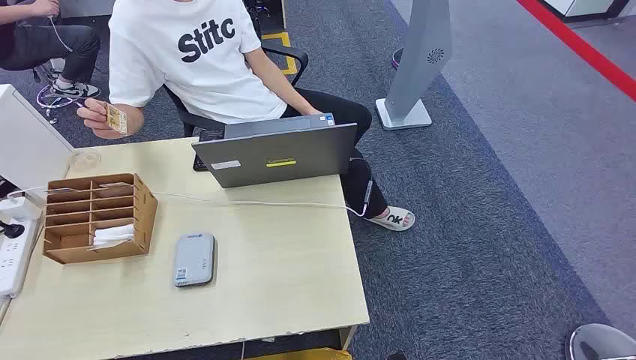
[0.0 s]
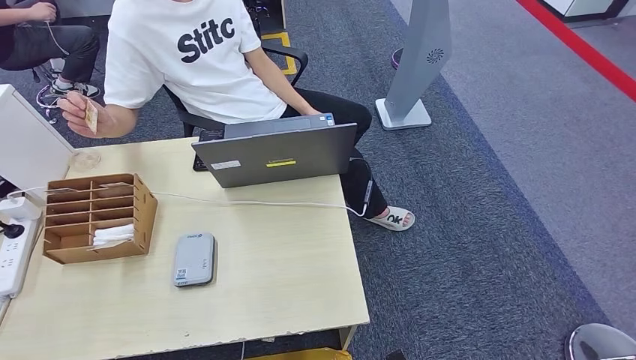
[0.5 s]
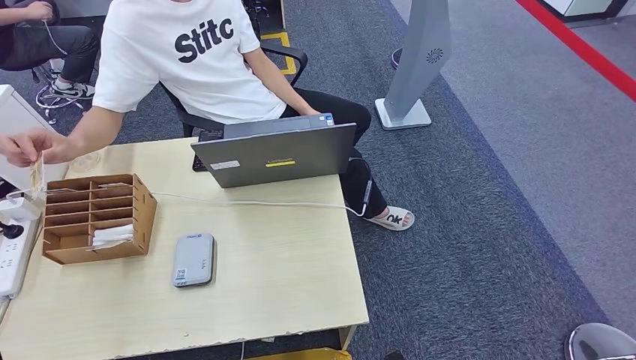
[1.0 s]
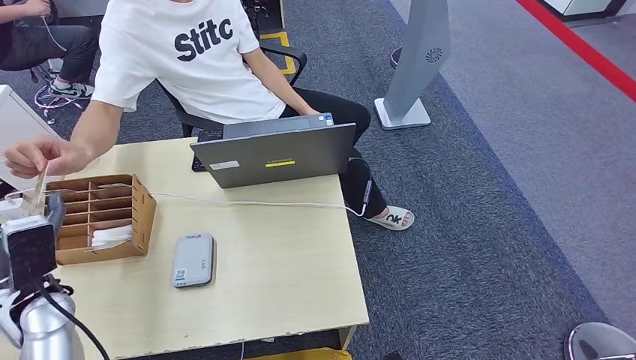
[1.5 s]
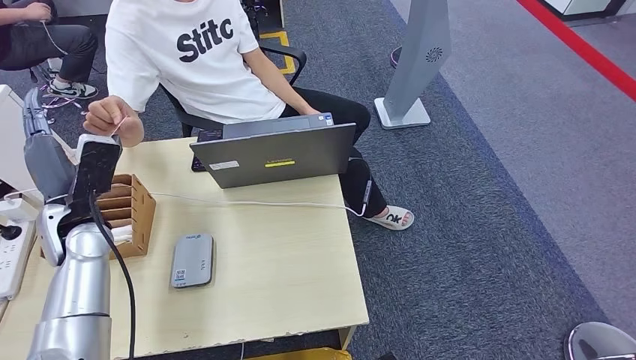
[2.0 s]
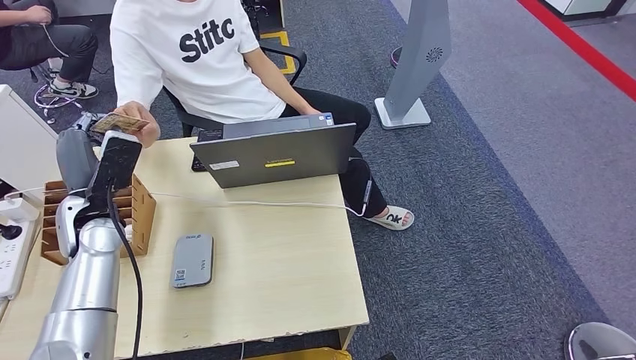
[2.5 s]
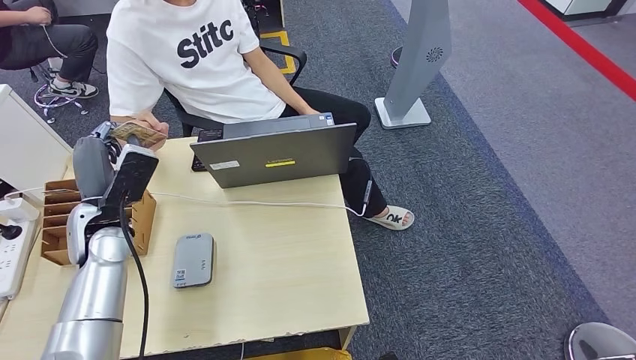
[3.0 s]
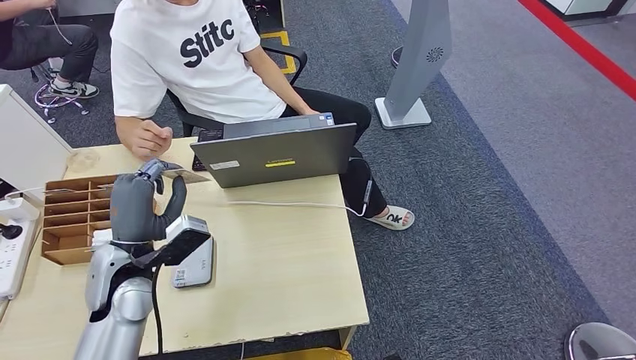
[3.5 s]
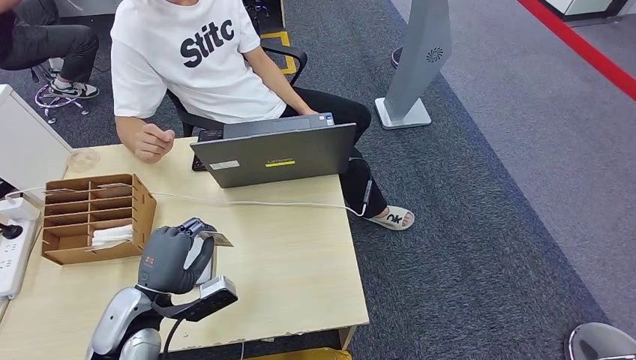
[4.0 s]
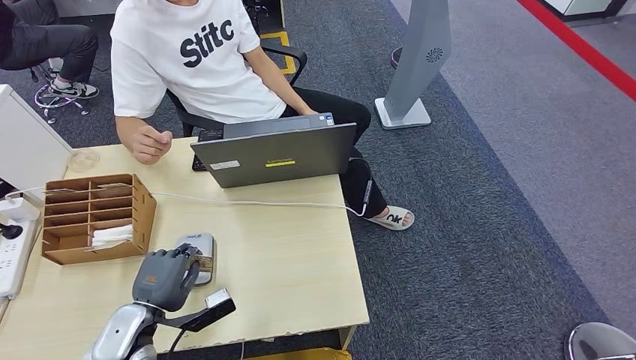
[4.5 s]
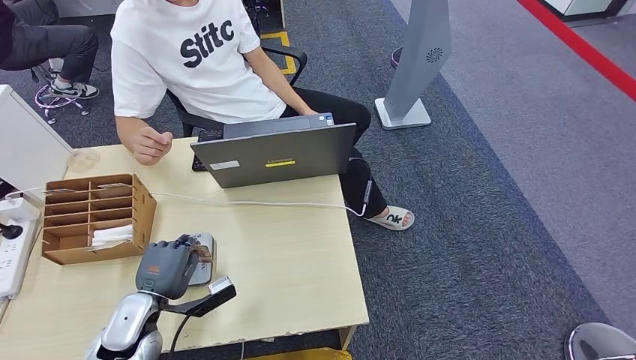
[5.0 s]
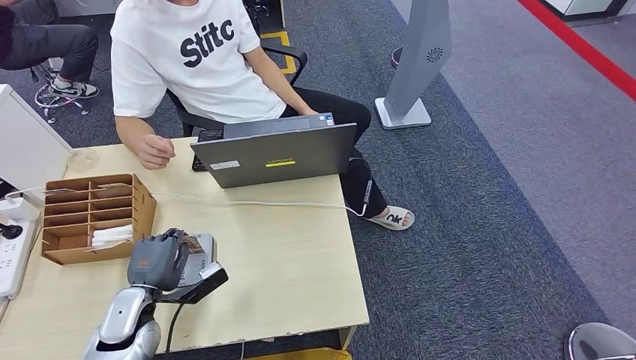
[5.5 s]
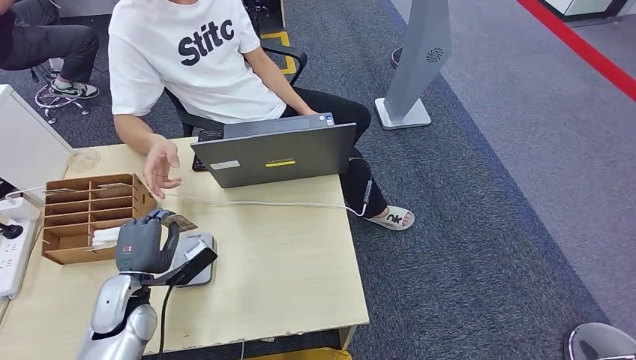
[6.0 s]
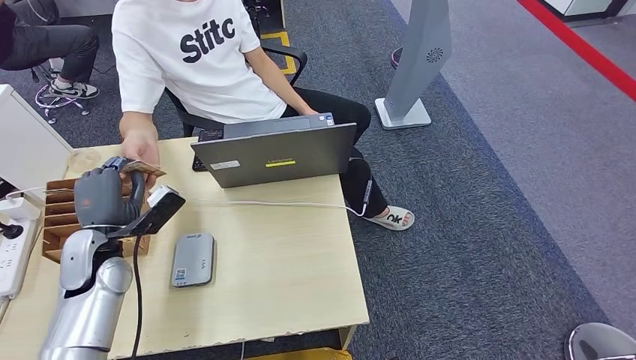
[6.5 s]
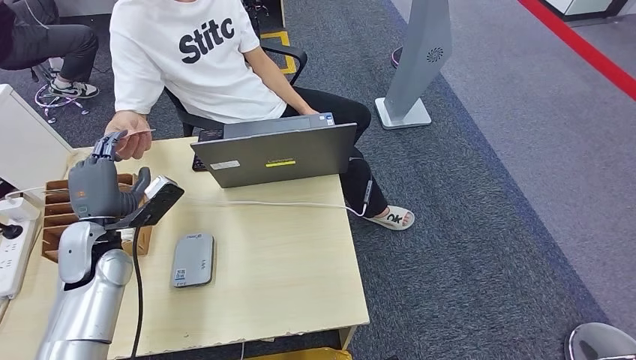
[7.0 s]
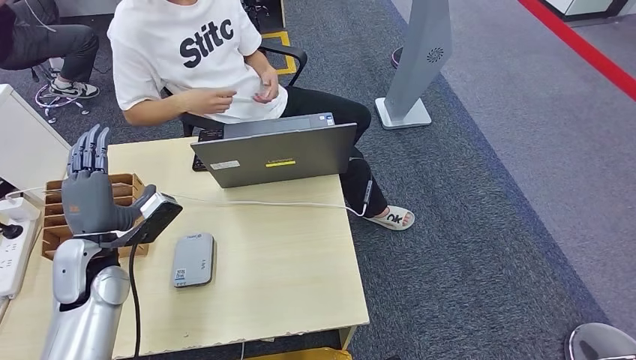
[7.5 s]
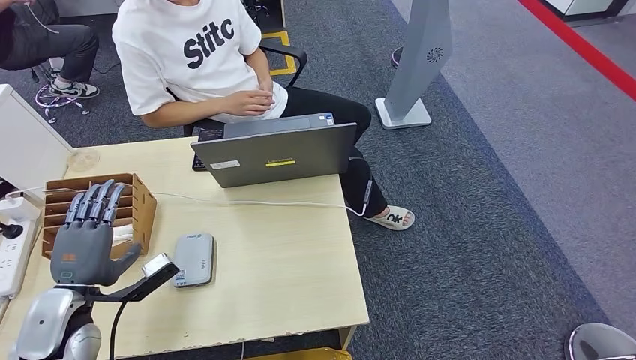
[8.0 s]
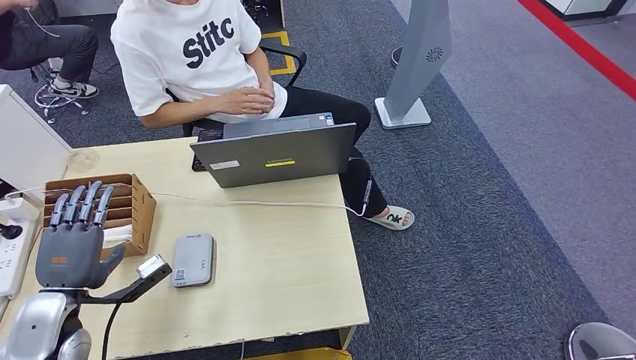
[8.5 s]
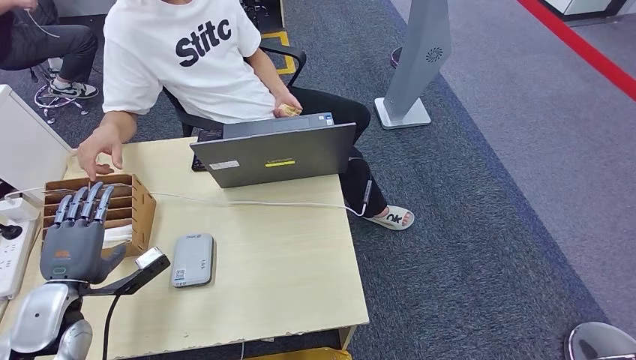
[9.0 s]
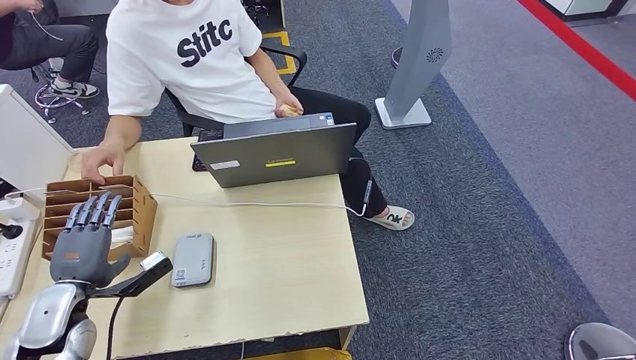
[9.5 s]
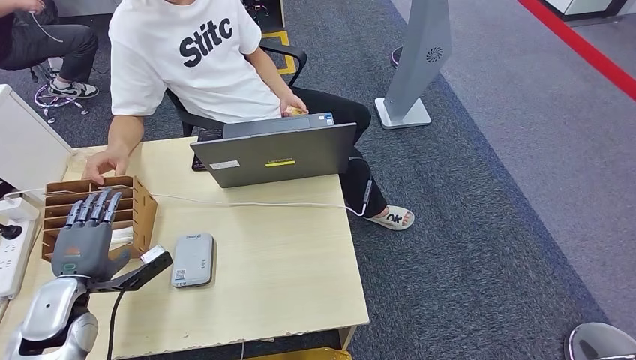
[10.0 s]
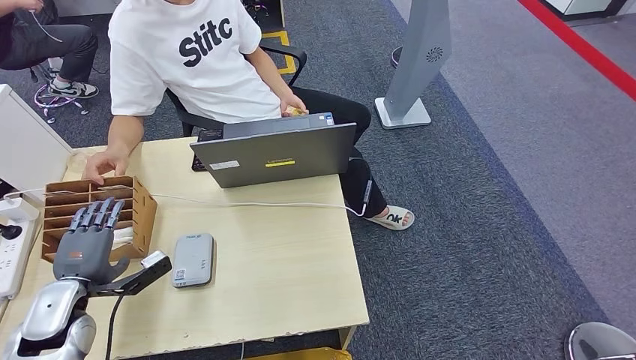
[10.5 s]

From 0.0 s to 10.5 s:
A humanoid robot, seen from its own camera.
Step, from 0.0 s to 2.5 s: Take the ID card from the person's hand.
Step, from 4.0 s to 5.5 s: Place the ID card on the card reader.
Step, from 6.0 s to 7.0 s: Hand the ID card to the person.
From 2.0 s to 4.0 s: The left hand is displaced backward, downward and to the right by roughly 20 cm.
From 4.0 s to 6.5 s: The left hand moves forward and to the left, some 10 cm.
From 6.5 s to 8.5 s: The left hand is displaced backward by approximately 10 cm.
From 8.5 s to 10.5 s: The left hand changes place by some 5 cm.

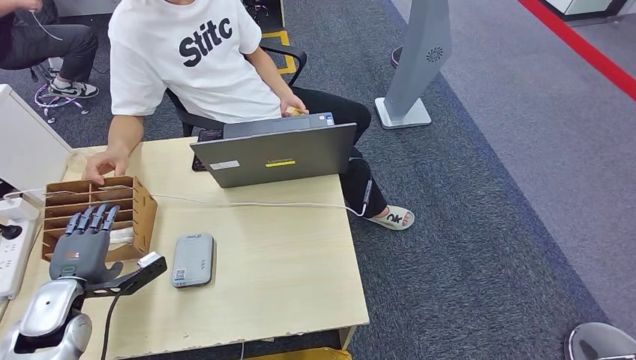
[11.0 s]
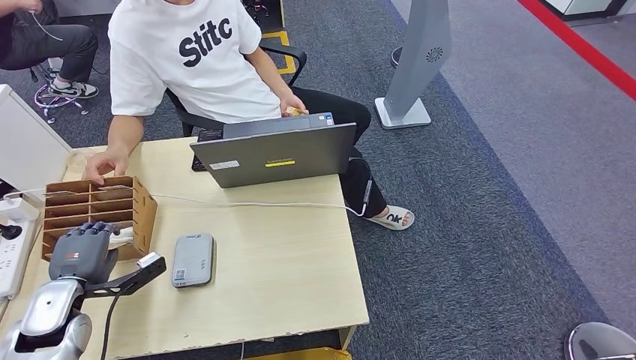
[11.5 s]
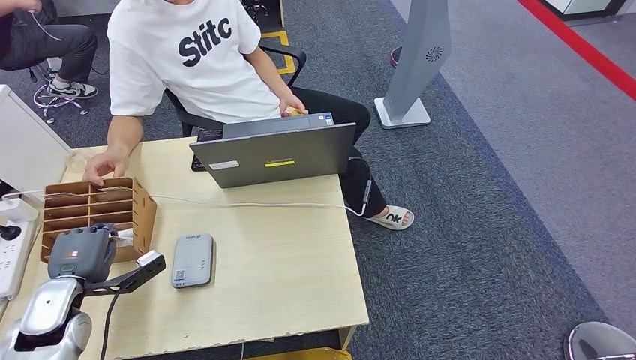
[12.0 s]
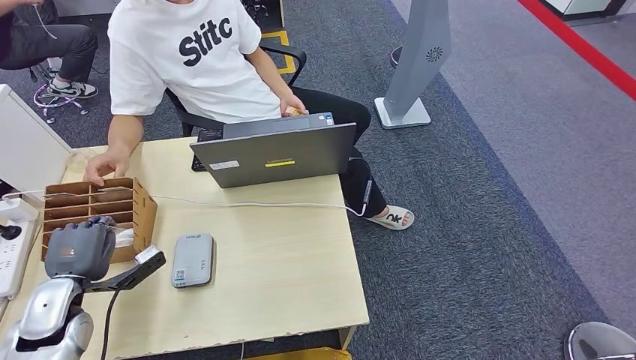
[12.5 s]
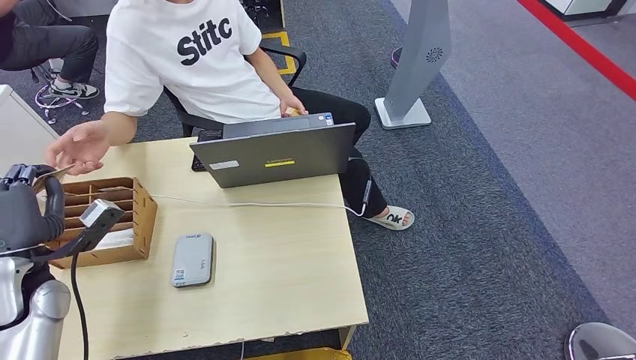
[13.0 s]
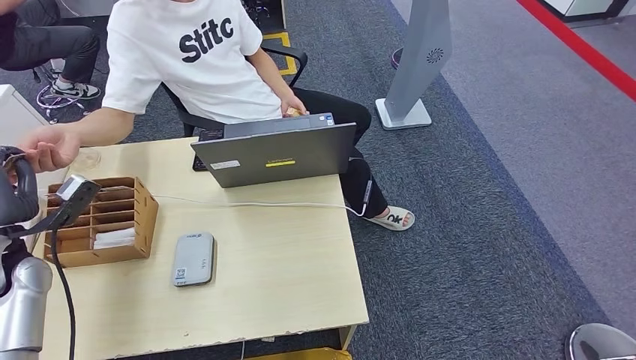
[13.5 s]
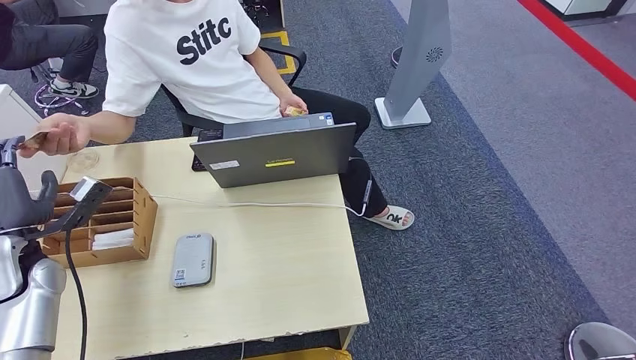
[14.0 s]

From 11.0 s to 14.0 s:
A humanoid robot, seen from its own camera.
Step, from 12.0 s to 12.5 s: Pick up the room key from the key card box.
Step, from 13.5 s to 14.0 s: Hand the room key to the person.
From 11.0 s to 12.5 s: The hands move only a little.
From 12.5 s to 14.0 s: The left hand travels upward and forward by approximately 10 cm.

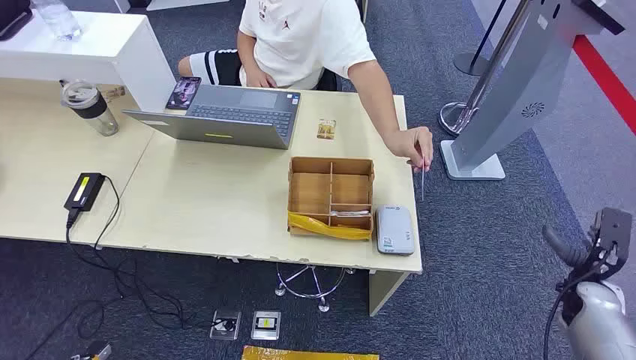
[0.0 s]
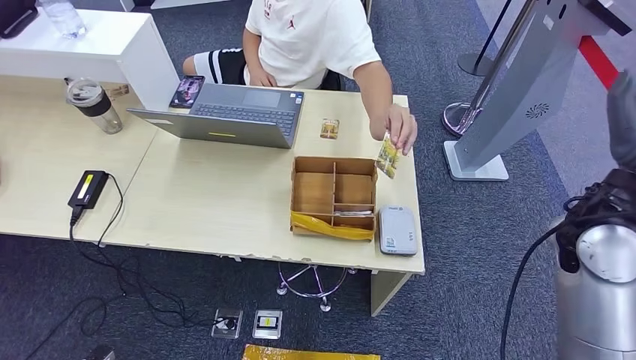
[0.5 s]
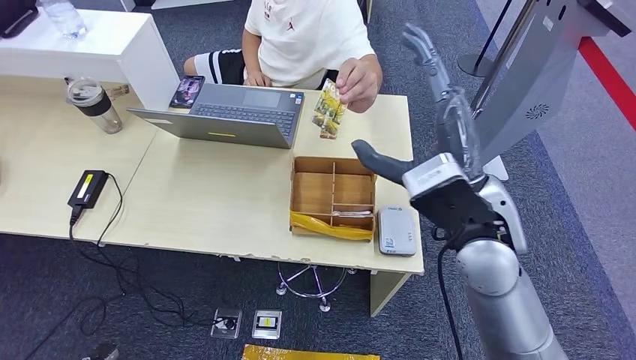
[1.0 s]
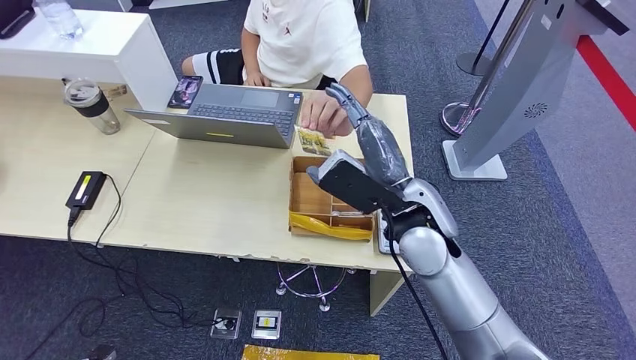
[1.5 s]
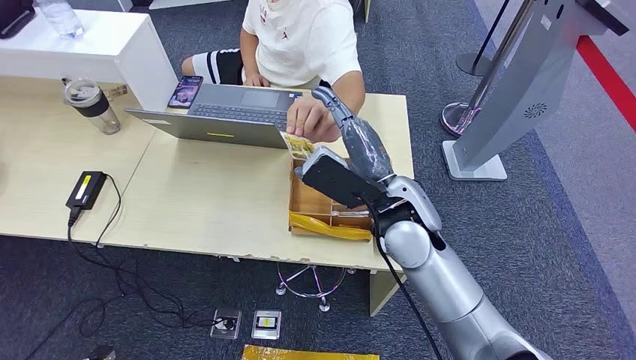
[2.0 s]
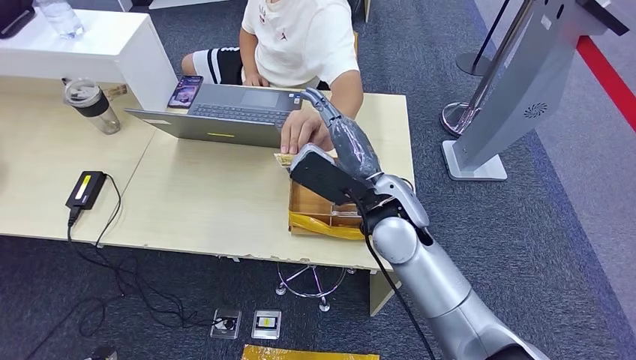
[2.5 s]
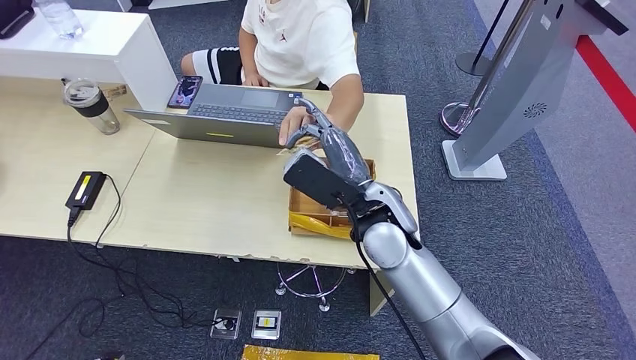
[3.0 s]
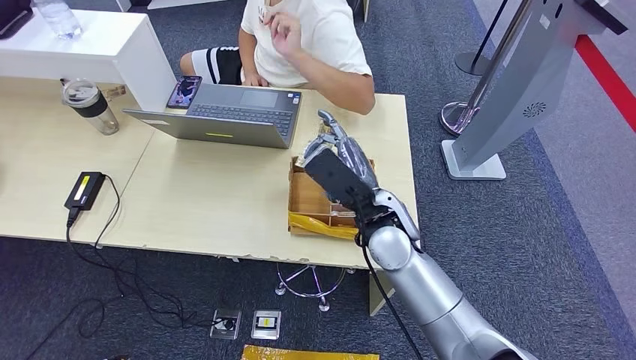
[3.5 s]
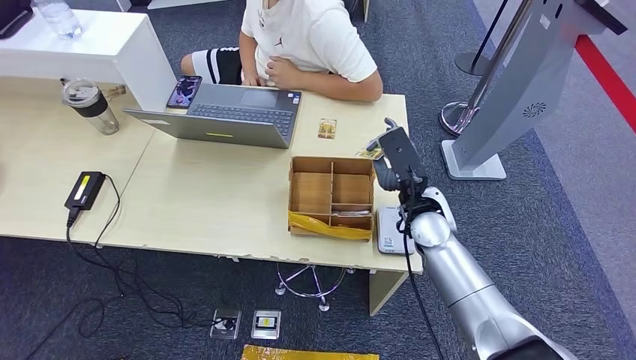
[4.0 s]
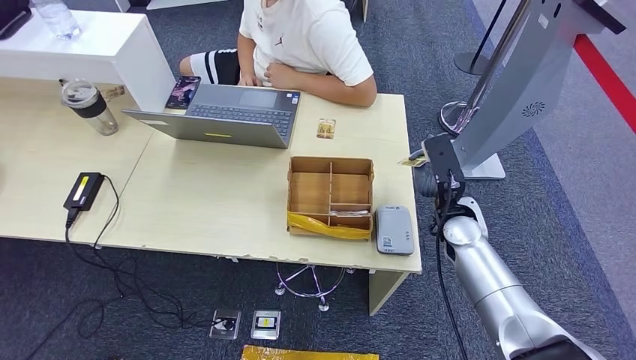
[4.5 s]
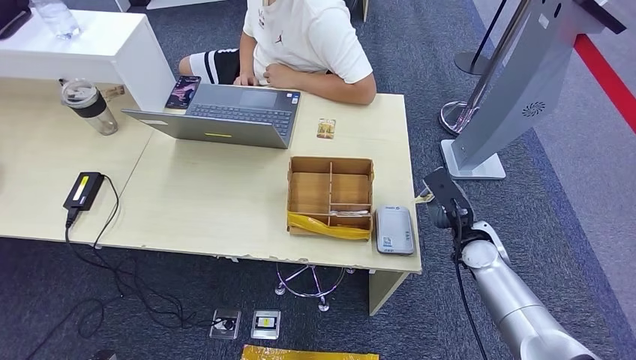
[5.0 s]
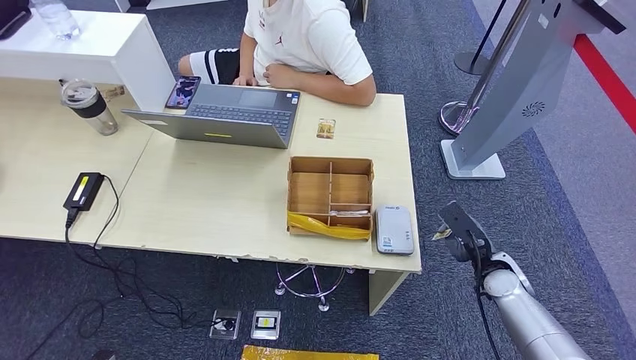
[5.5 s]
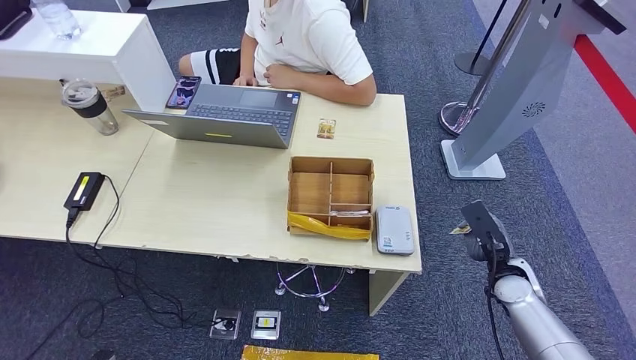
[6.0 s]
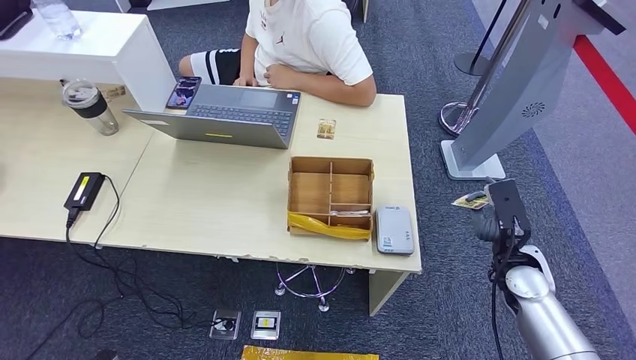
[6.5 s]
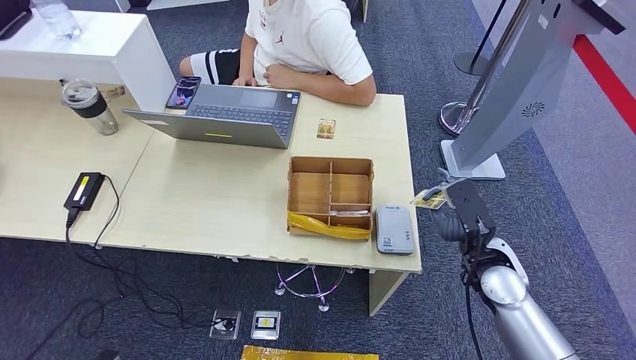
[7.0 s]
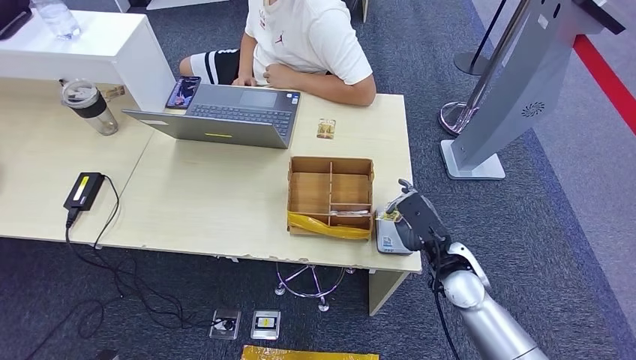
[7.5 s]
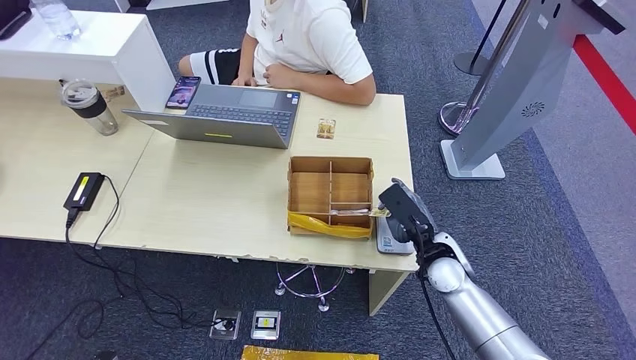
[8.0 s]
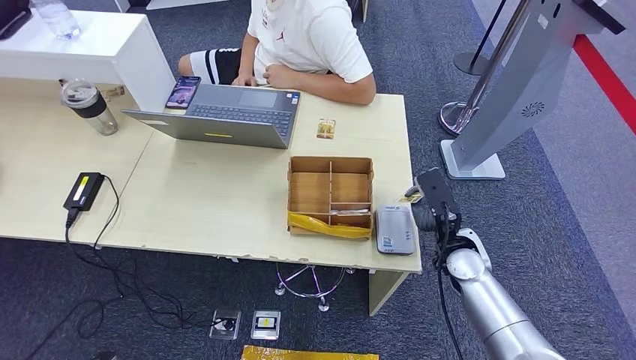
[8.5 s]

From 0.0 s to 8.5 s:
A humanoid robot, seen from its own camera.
Step, from 0.0 s to 3.0 s: Take the ID card from the person's hand.
Step, from 4.0 s to 7.5 s: Place the ID card on the card reader.
From 2.0 s to 4.0 s: The left hand shifts by roughly 5 cm. The right hand is displaced downward and to the right by roughly 10 cm.
From 4.0 s to 6.5 s: The right hand heads to the right and backward, covering roughly 20 cm, while the left hand moves to the left, about 5 cm.
From 6.5 s to 8.5 s: The right hand goes approximately 10 cm to the left.
